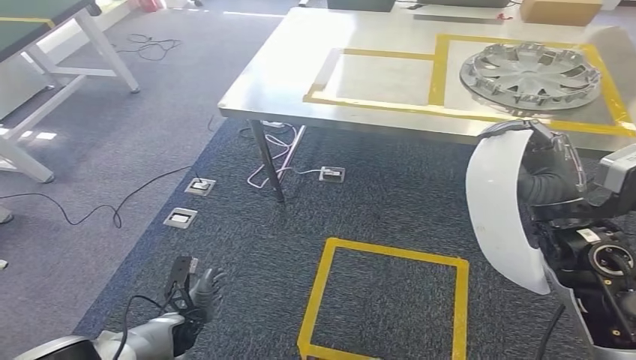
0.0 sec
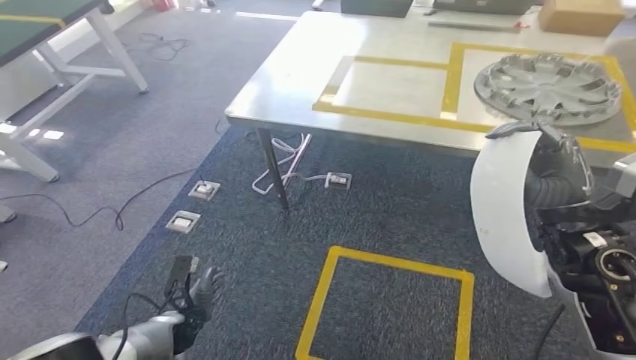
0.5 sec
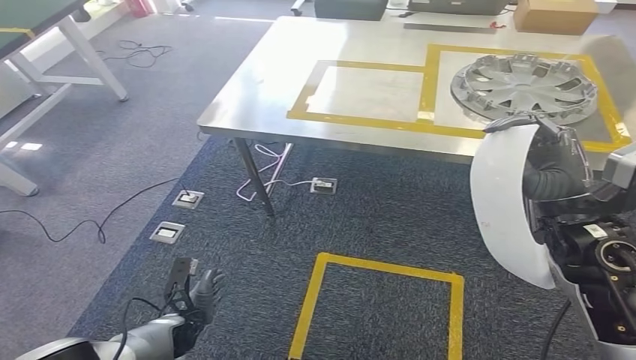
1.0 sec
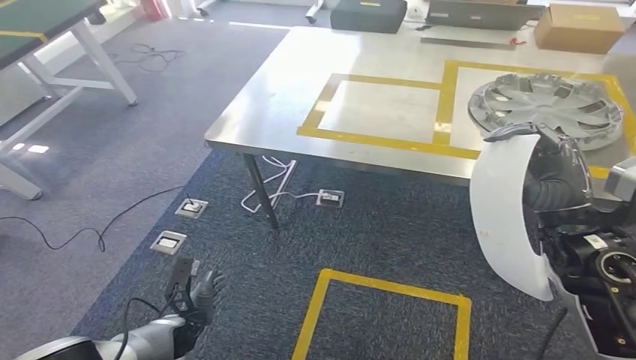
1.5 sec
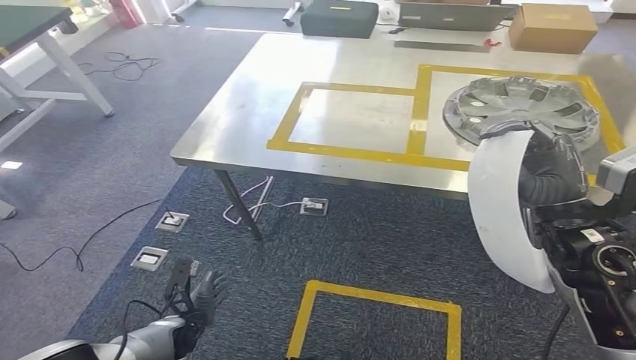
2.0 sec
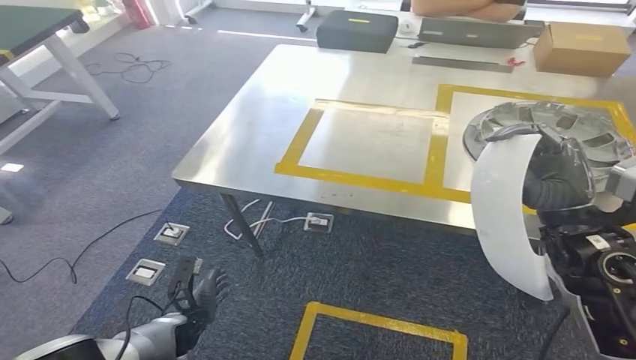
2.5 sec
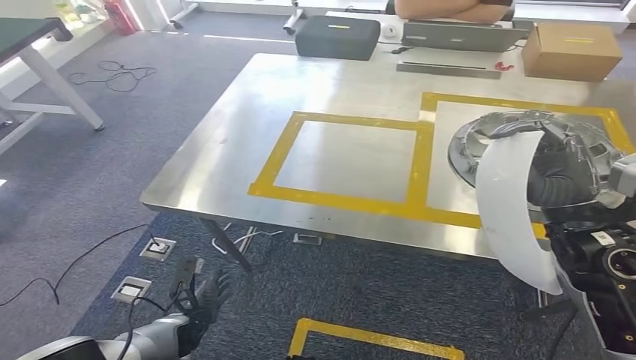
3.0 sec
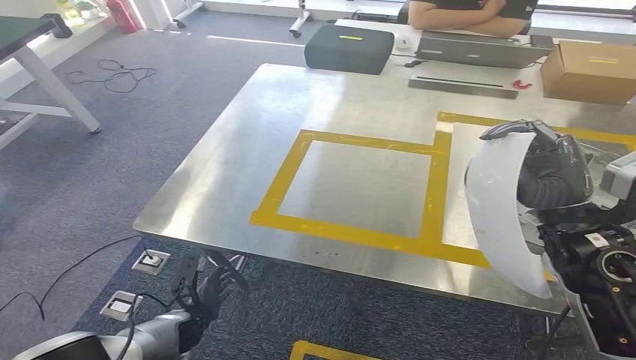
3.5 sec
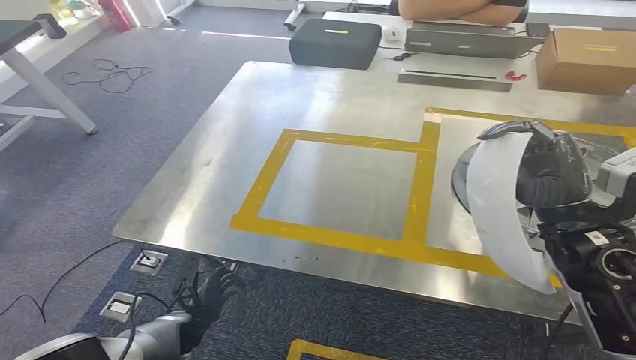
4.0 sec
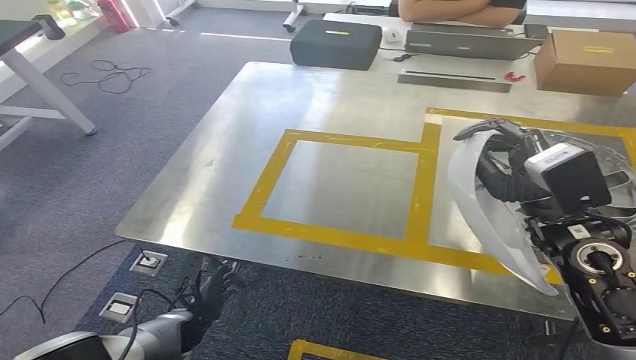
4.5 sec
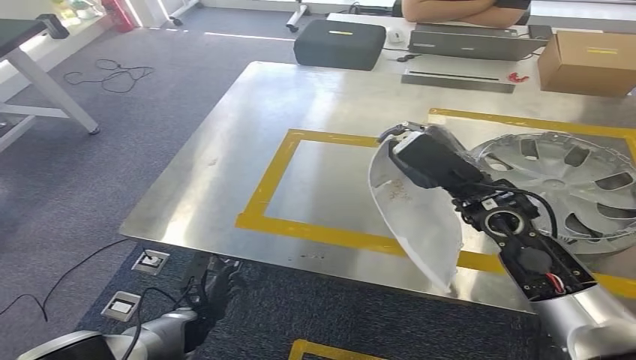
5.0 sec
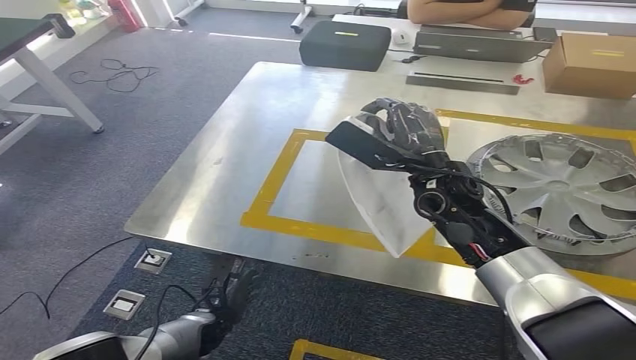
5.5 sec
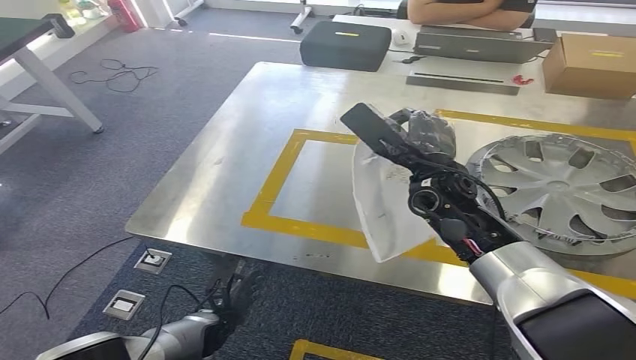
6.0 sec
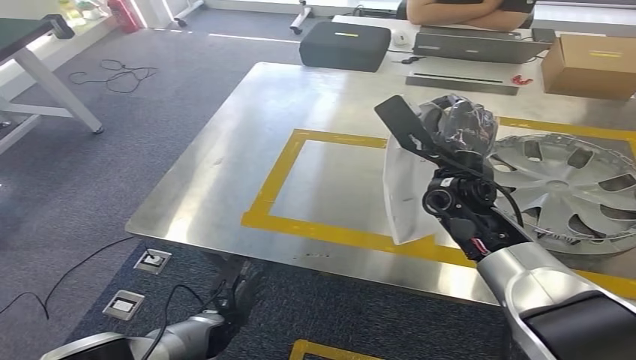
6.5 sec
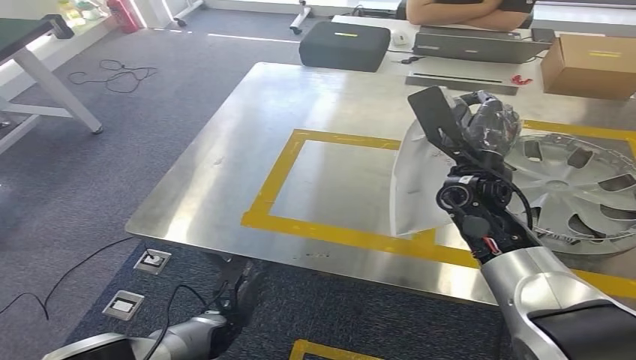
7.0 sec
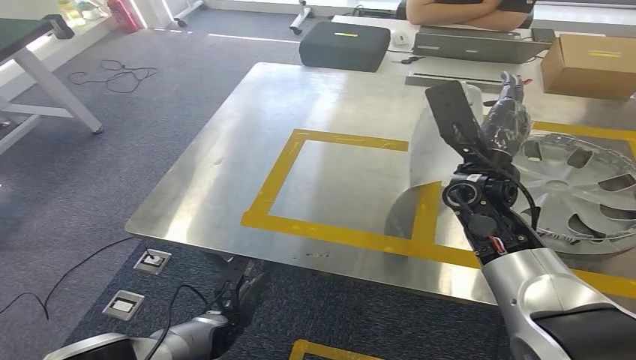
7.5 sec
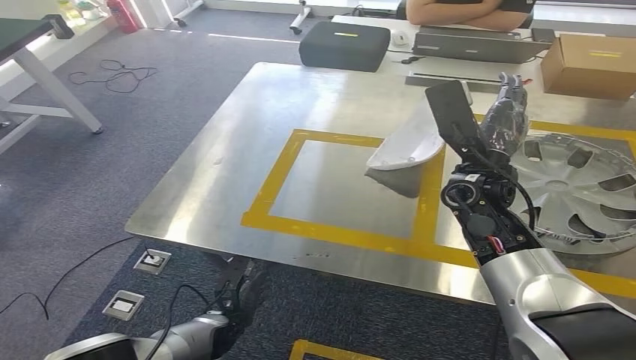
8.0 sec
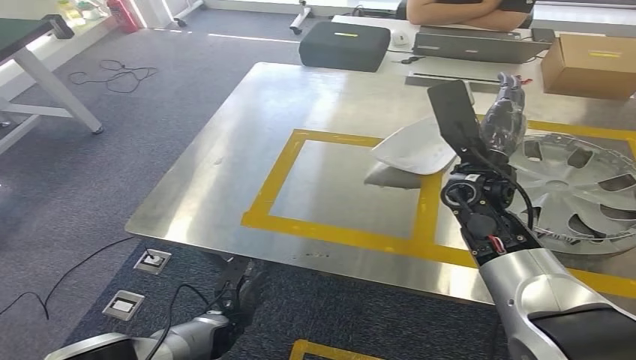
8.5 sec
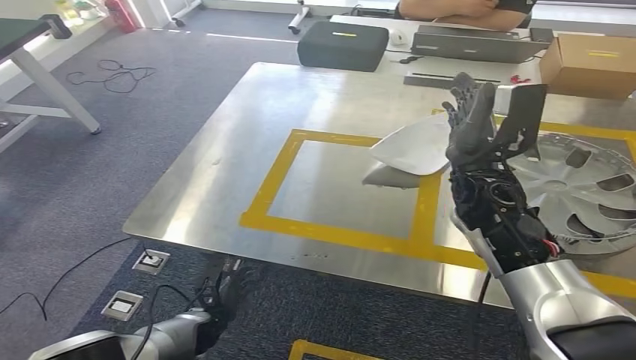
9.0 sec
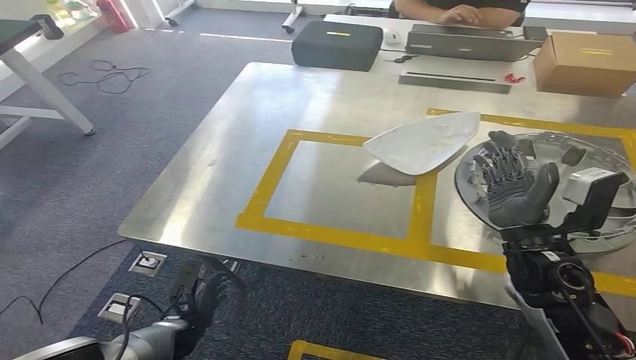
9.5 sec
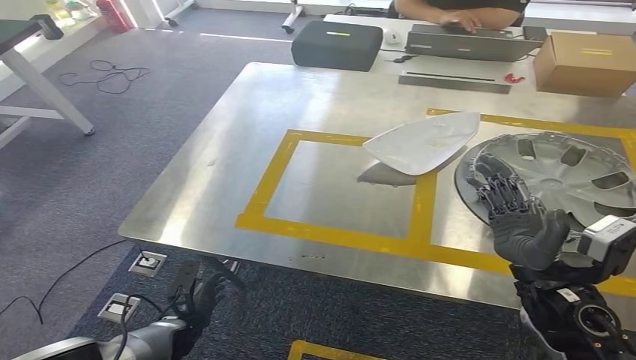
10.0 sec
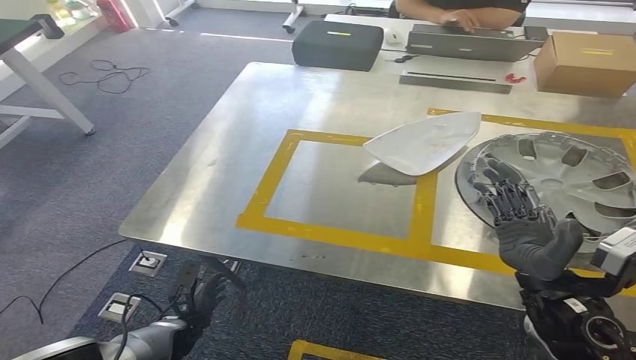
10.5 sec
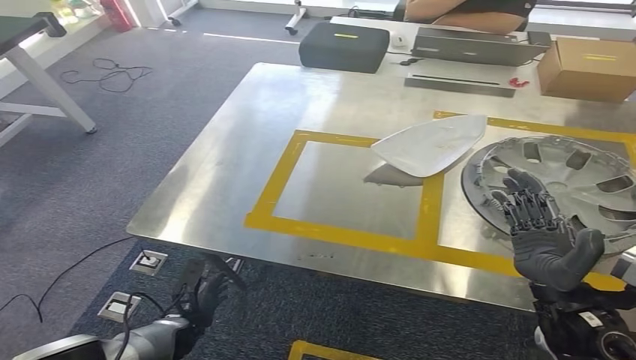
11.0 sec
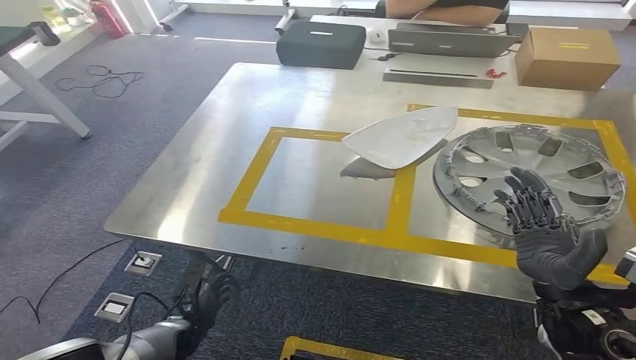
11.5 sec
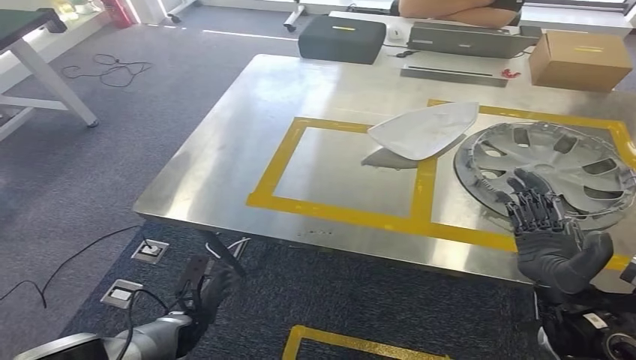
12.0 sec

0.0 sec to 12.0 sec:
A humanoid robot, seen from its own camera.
Step, 0.0 sec to 5.5 sec: Bring the small component to the front of the workbench.
Step, 6.0 sec to 9.5 sec: Insert the small component into the corresponding slot on the workbench.

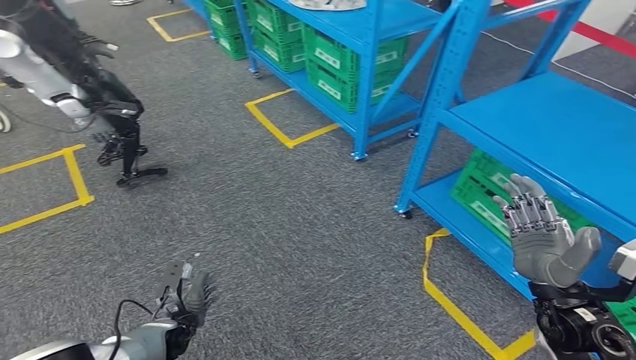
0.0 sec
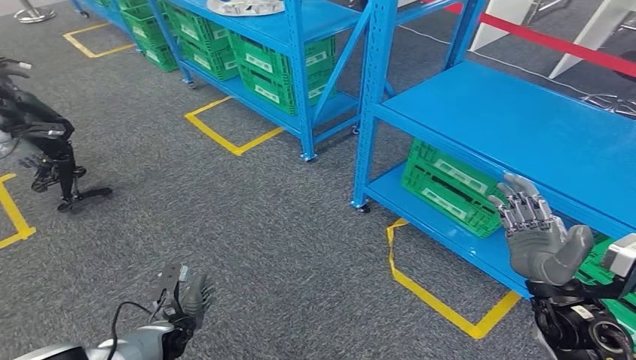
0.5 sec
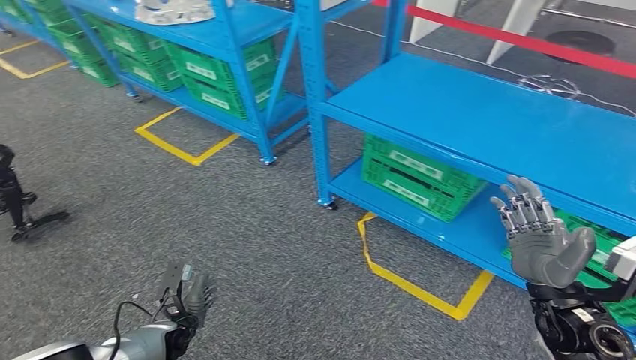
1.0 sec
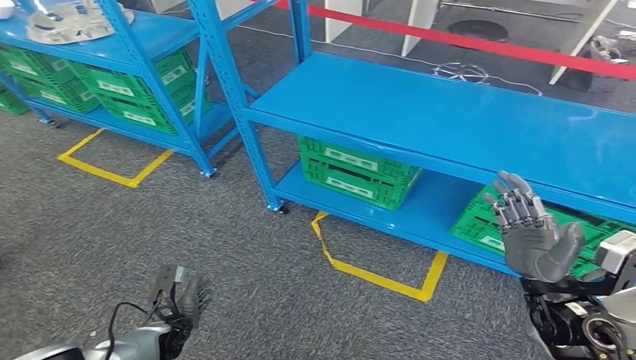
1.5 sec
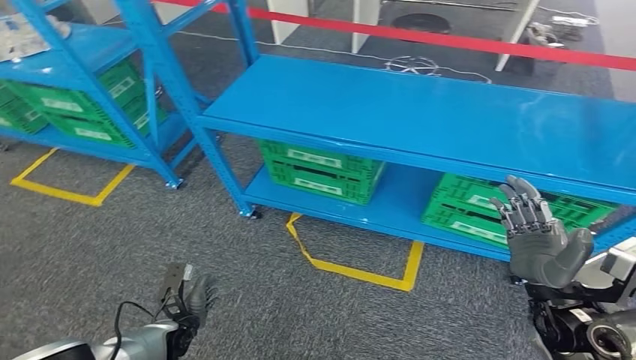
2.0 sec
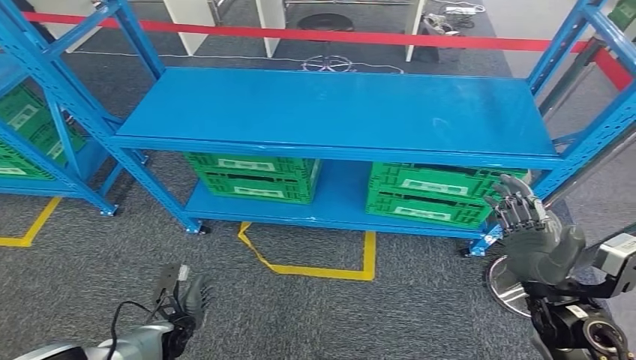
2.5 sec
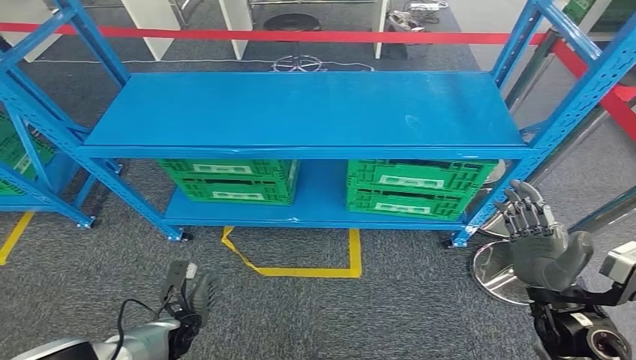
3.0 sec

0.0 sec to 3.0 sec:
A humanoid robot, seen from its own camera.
Step, 0.0 sec to 3.0 sec: Move to the initial position of the workbench.
